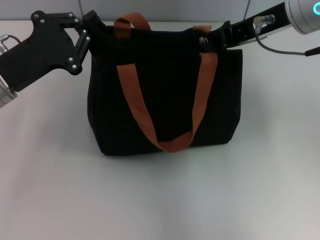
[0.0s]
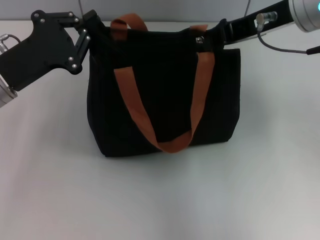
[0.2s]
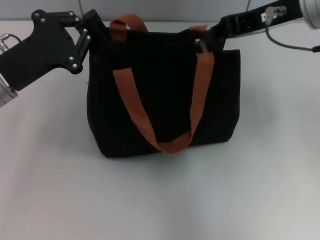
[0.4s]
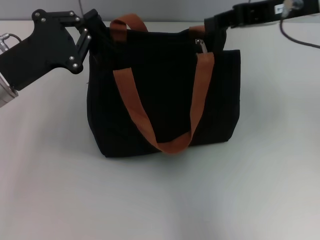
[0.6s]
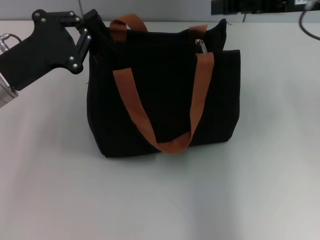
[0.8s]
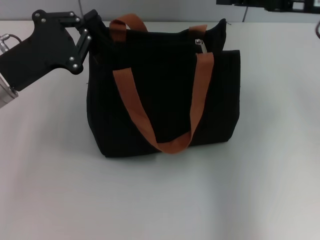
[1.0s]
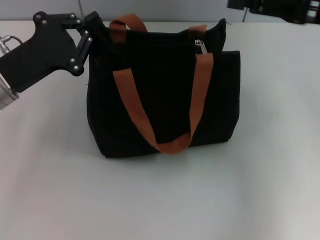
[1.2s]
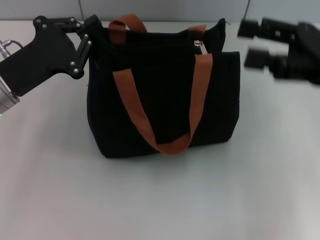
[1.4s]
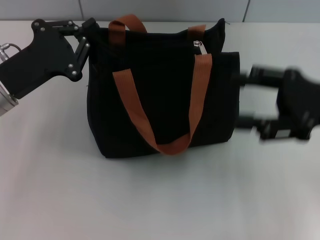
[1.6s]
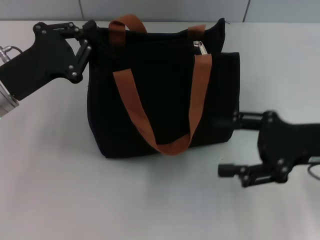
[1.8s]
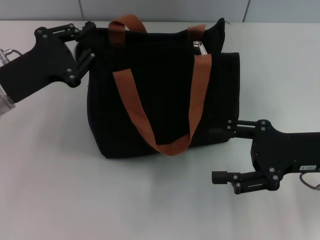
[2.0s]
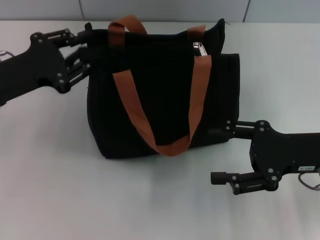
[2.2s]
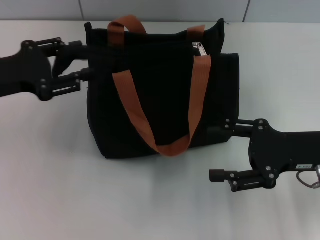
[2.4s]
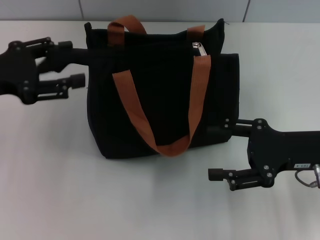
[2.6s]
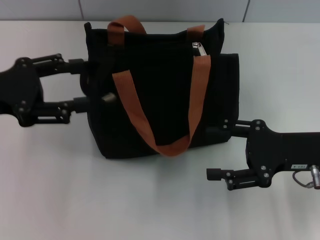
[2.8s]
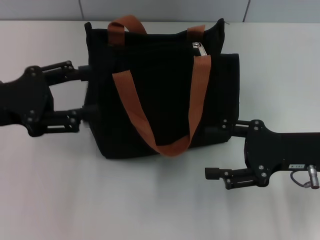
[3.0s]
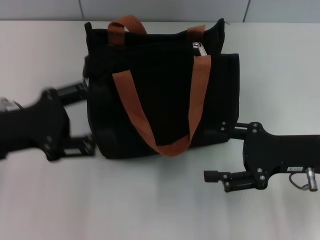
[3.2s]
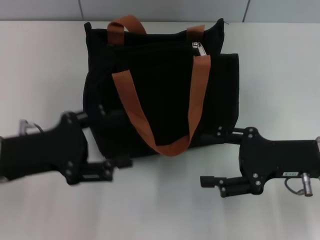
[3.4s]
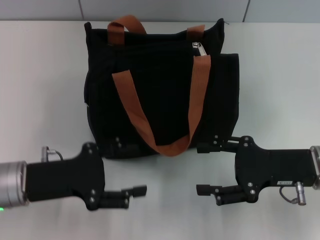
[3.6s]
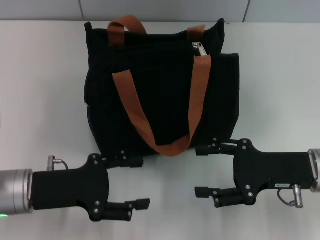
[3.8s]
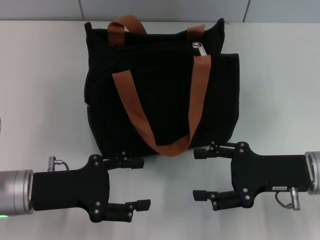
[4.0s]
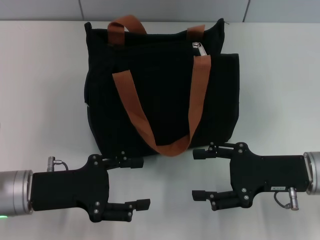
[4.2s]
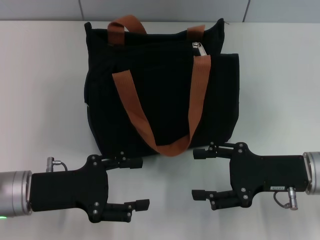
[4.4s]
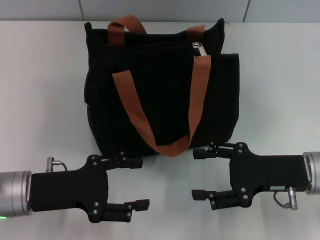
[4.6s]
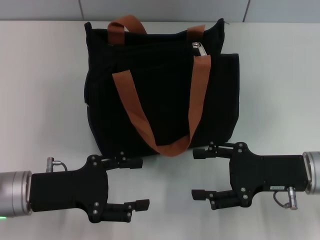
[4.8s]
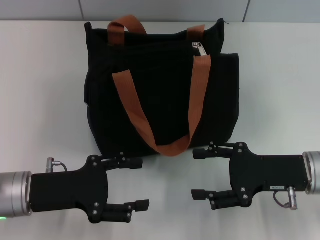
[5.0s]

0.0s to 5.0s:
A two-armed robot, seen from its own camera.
Step, 0.4s to 2.6s: Grab the zipper with your left hand.
0.0s to 1.6s: The right gripper shifts roughly 15 cm to the right, downward and backward, and opens up.
1.6s to 3.4s: The right gripper shifts roughly 10 cm downward; the left gripper is displaced backward by about 5 cm, and opens its fingers.
3.4s to 5.0s: The grippers make only small movements.

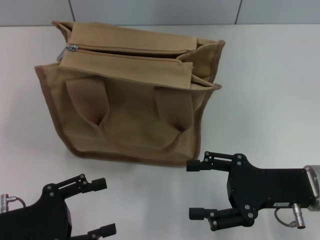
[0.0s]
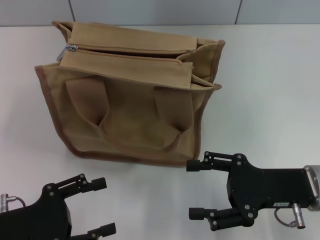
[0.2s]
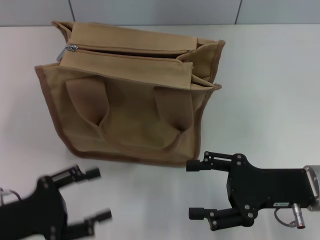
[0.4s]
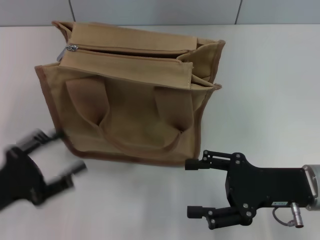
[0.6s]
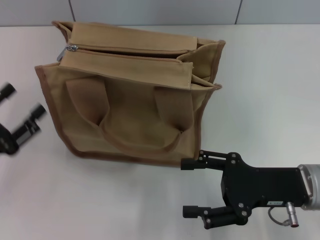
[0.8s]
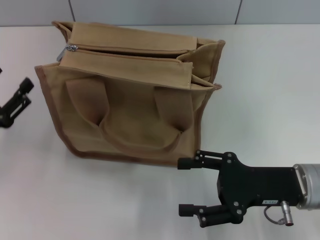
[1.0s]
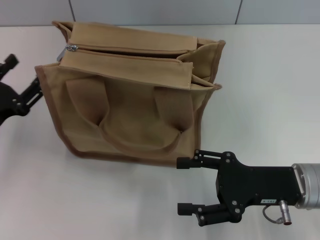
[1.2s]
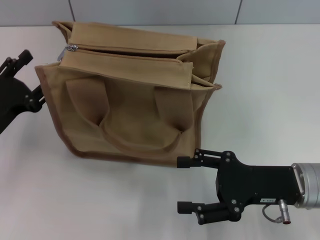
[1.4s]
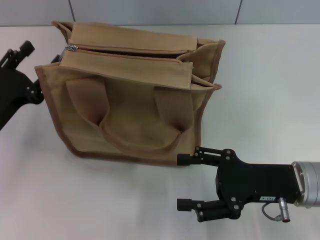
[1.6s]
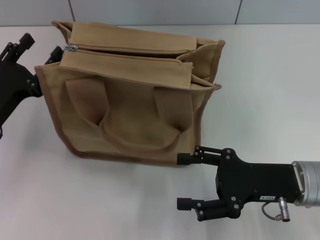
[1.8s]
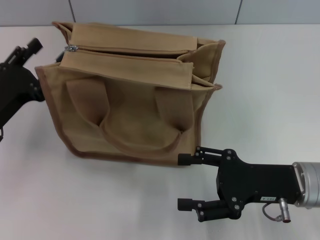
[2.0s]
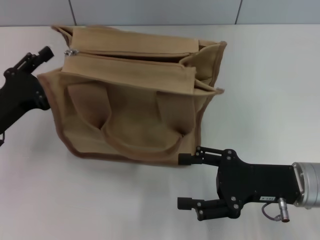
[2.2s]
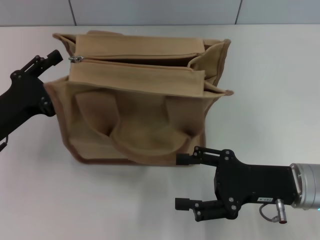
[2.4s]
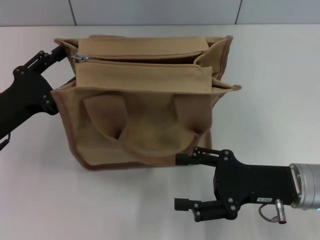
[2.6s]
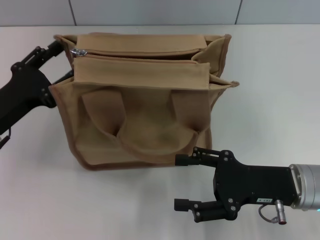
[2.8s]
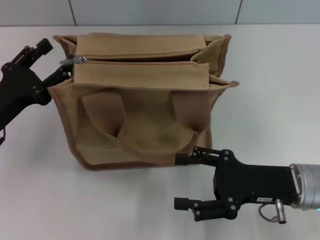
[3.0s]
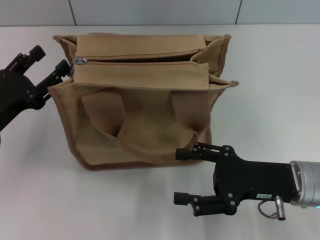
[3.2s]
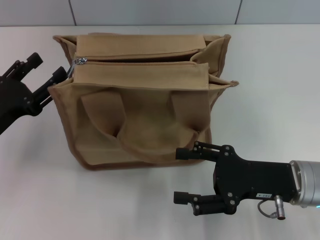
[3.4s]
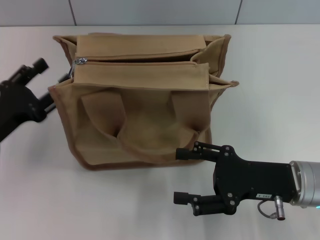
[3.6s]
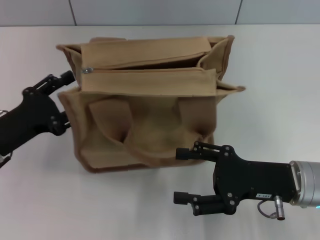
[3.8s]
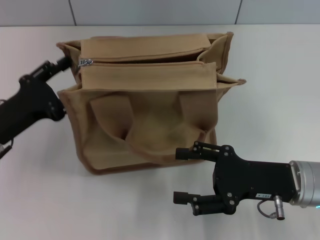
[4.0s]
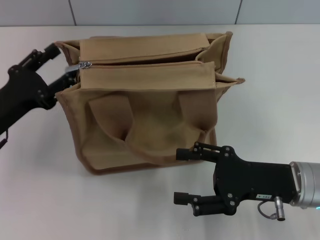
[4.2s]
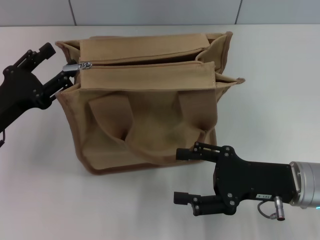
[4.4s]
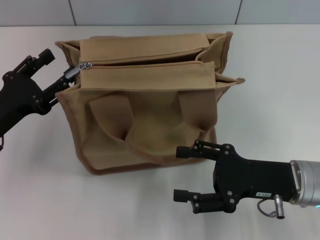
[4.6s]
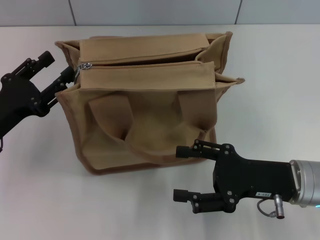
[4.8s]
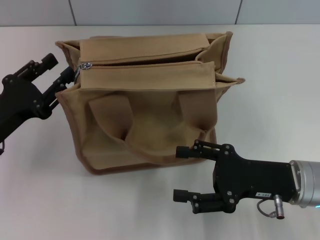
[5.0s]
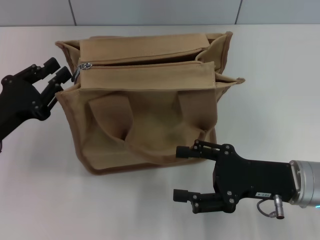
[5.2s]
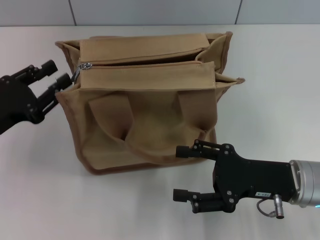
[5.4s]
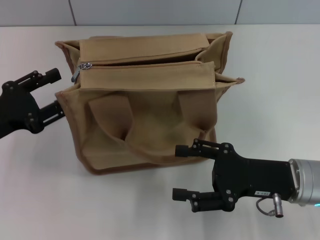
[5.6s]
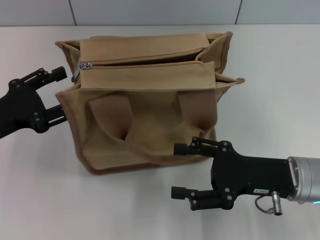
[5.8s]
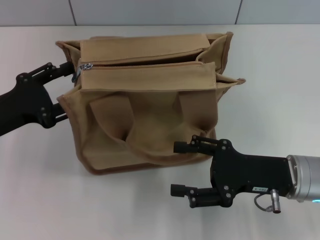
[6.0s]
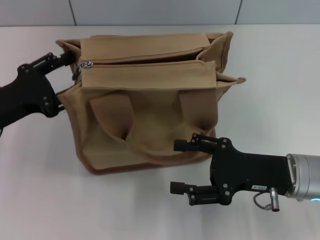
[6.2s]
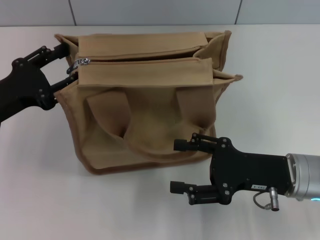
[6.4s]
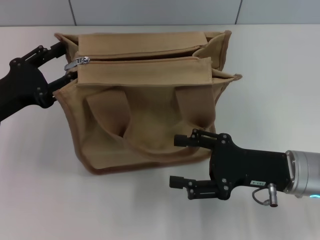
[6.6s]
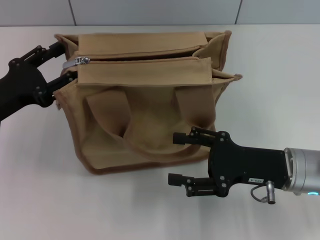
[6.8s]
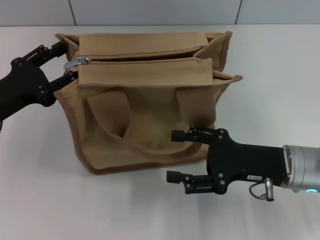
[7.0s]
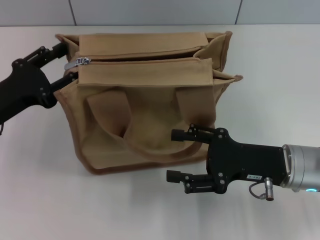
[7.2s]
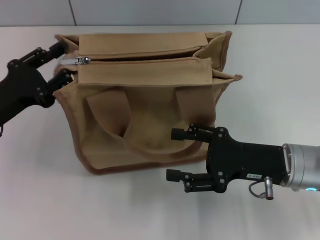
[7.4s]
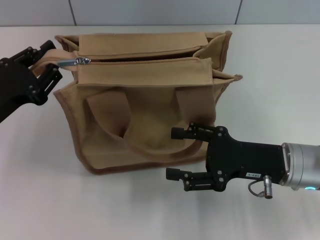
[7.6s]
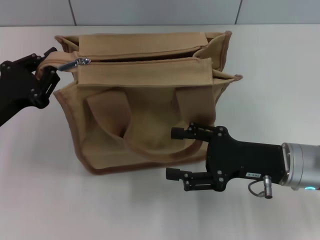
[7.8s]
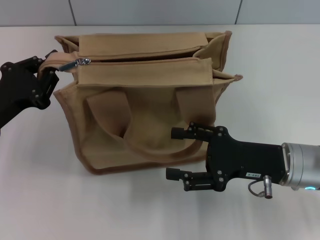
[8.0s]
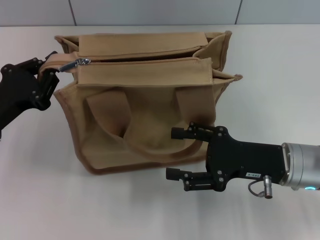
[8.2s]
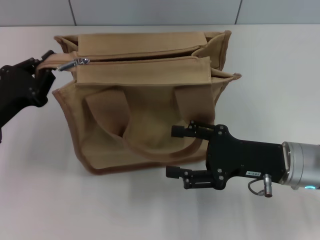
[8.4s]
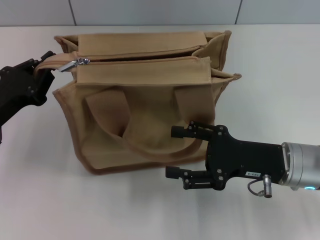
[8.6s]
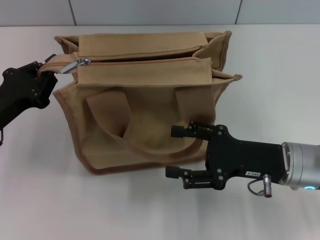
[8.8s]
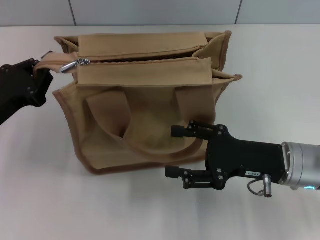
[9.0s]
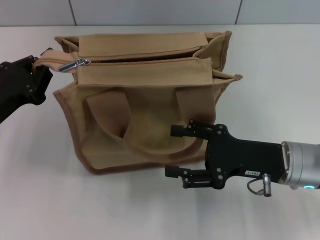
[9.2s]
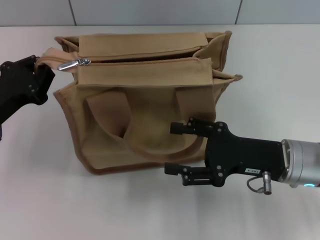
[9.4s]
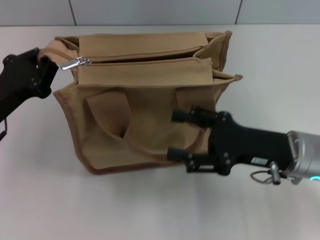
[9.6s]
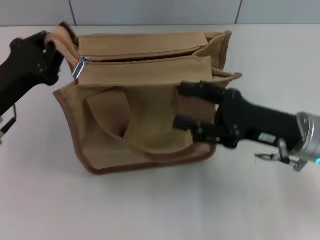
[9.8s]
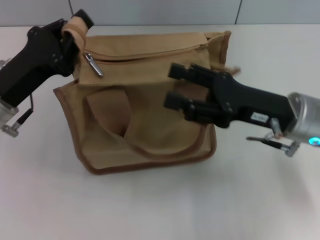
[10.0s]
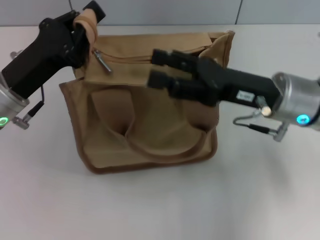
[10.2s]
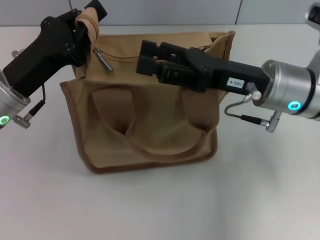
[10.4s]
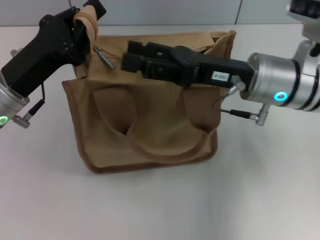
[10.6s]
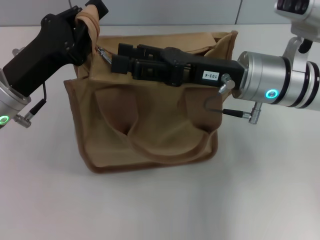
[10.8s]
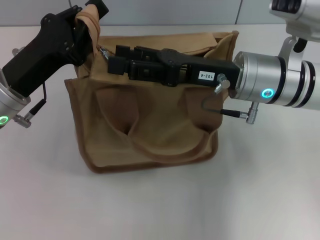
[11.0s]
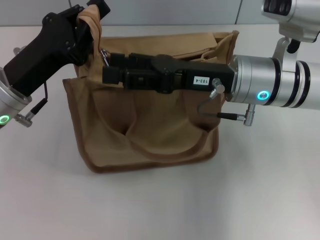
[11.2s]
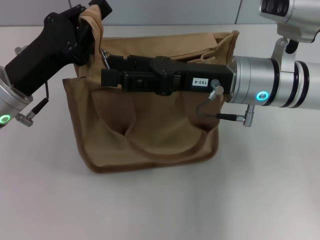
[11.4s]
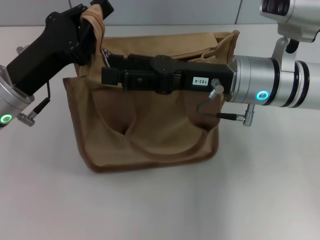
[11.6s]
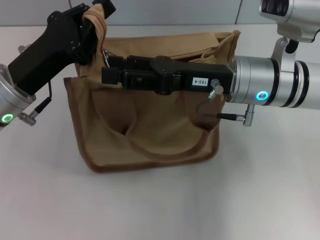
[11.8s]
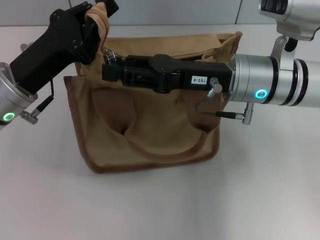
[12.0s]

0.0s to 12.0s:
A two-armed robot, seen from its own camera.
0.0s to 1.6s: The left gripper moves forward, roughly 10 cm.
1.6s to 3.0s: The grippers make only small movements.
3.0s to 4.4s: The grippers stay close to where they were, moving slightly.
4.4s to 6.0s: The left gripper closes, then reopens.
6.0s to 7.6s: The grippers make only small movements.
7.6s to 9.0s: The left gripper closes its fingers.
9.0s to 10.4s: The right gripper shifts roughly 10 cm upward and forward. Meanwhile the left gripper is displaced to the right by about 5 cm.

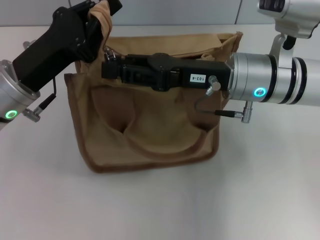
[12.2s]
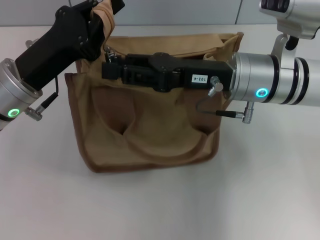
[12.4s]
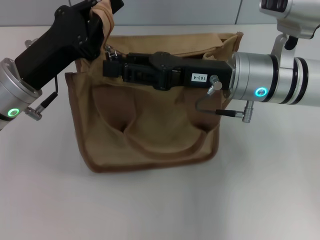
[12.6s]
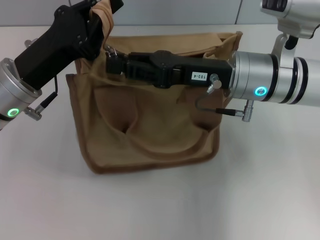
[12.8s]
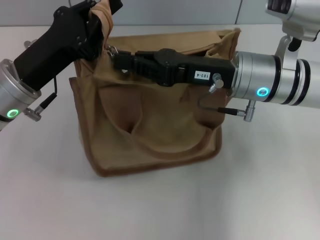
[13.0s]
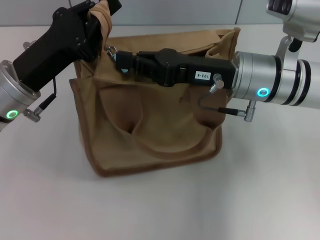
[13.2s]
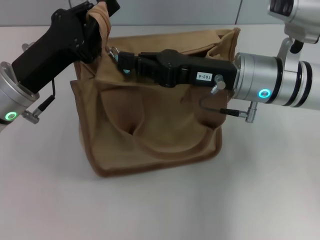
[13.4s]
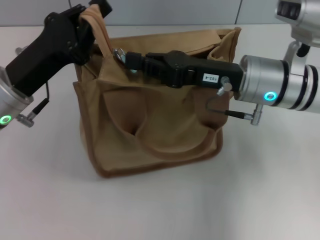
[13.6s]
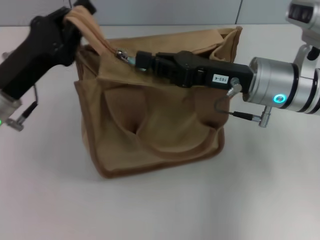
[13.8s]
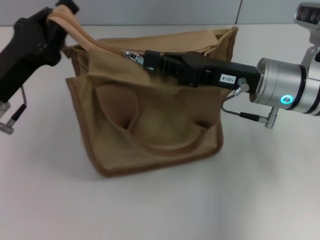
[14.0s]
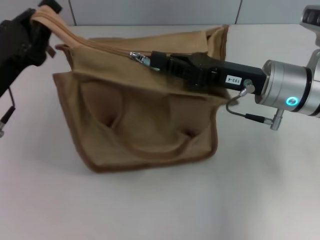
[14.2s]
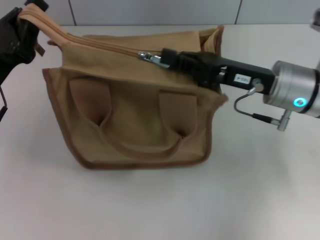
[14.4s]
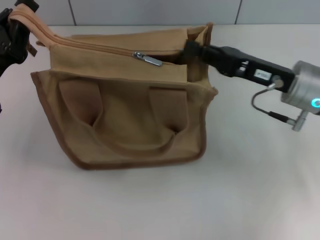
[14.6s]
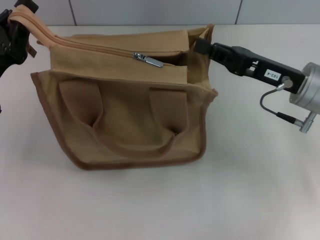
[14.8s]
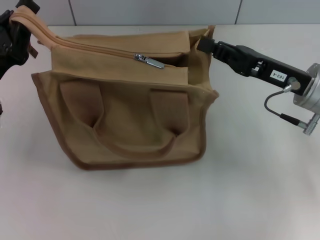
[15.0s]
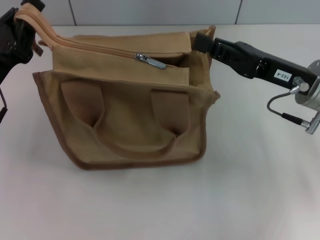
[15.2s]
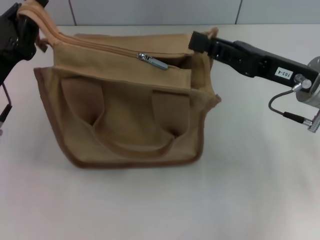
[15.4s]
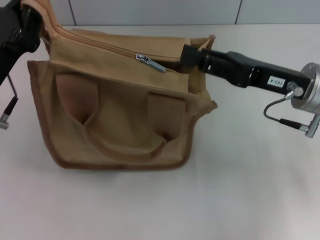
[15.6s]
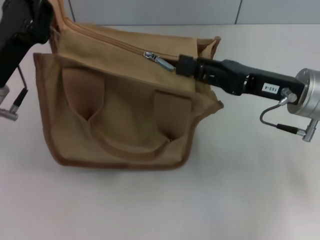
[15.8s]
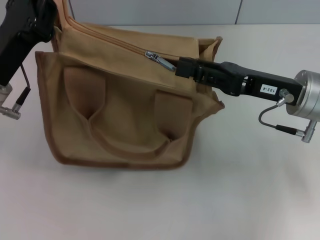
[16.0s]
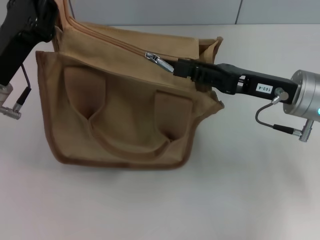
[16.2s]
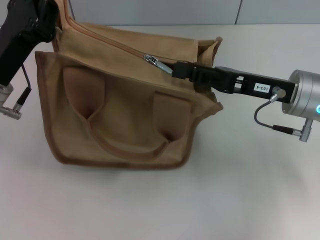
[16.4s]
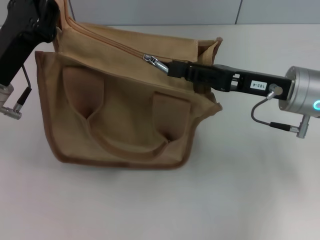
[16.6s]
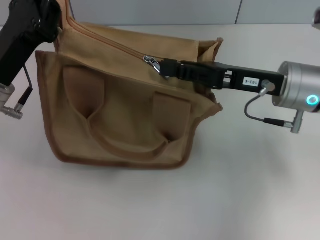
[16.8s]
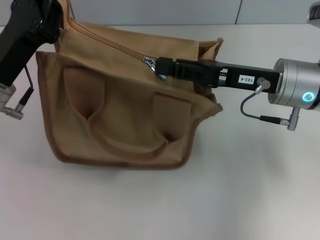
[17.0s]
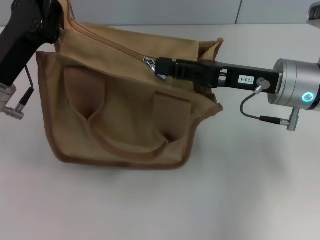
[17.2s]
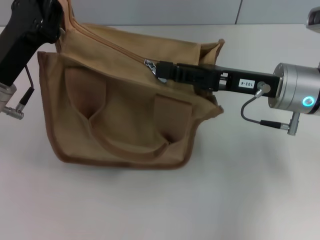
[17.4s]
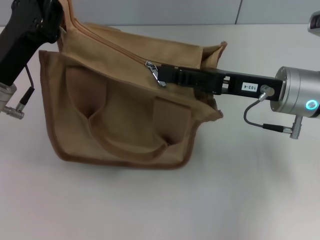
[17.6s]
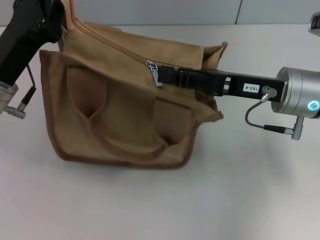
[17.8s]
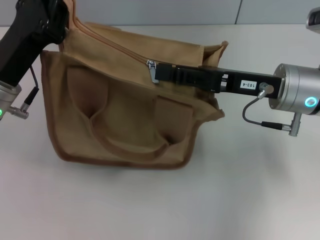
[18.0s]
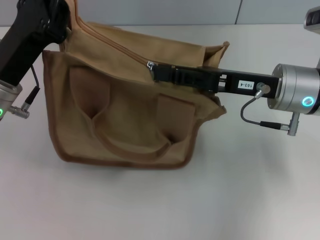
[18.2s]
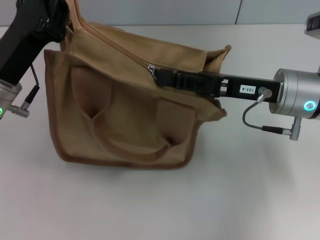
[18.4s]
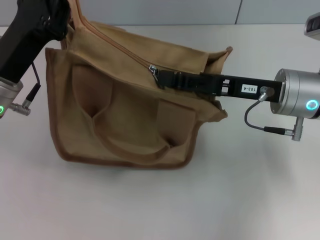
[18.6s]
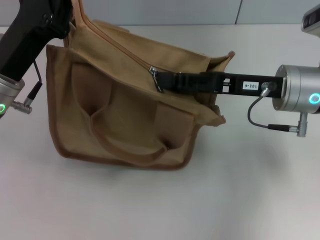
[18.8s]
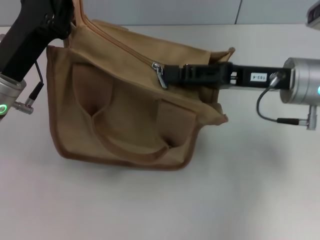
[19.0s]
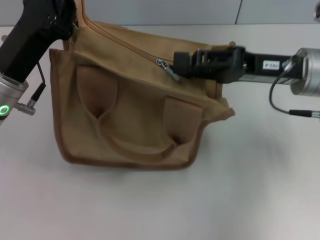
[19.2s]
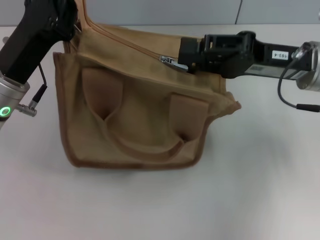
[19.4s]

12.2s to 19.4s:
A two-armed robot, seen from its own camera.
12.2s to 13.6s: The right gripper closes up.
13.6s to 15.0s: The right gripper goes some 10 cm to the right. The left gripper moves to the left, approximately 5 cm.
15.0s to 16.6s: The right gripper opens its fingers.
16.6s to 18.0s: The grippers stay close to where they were, moving slightly.
